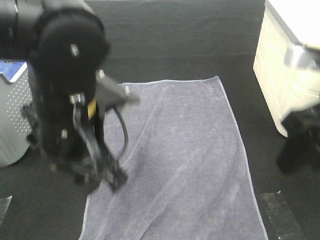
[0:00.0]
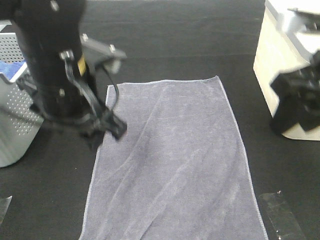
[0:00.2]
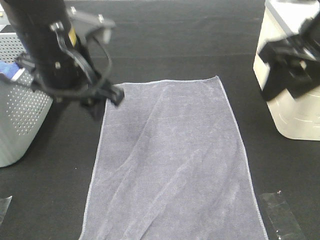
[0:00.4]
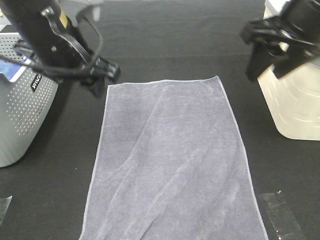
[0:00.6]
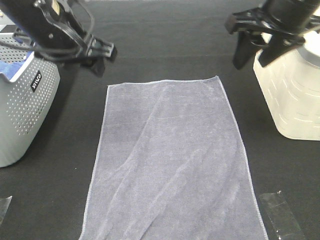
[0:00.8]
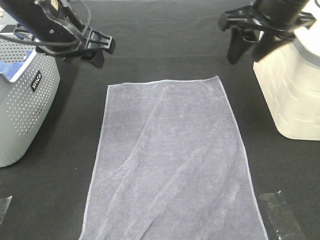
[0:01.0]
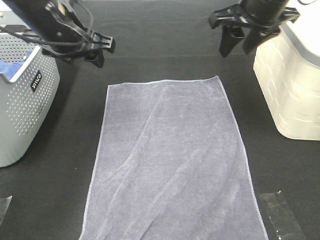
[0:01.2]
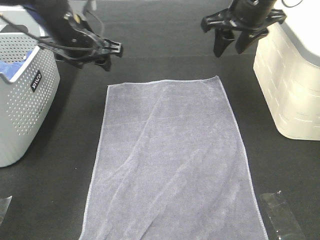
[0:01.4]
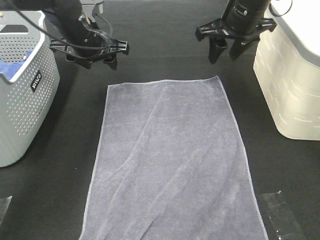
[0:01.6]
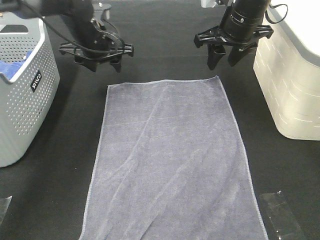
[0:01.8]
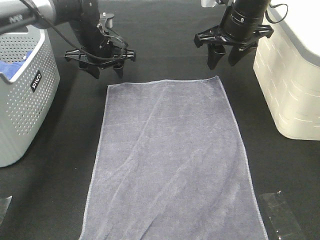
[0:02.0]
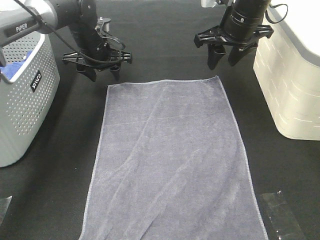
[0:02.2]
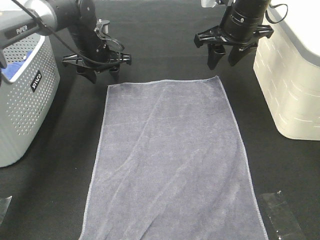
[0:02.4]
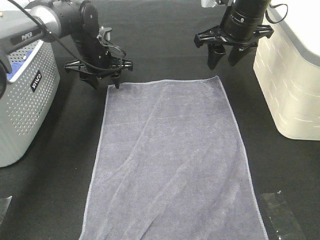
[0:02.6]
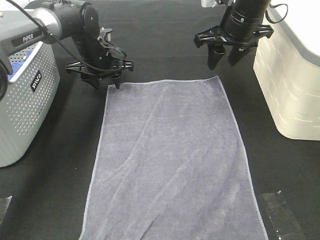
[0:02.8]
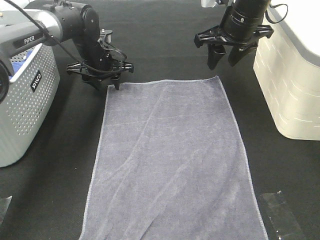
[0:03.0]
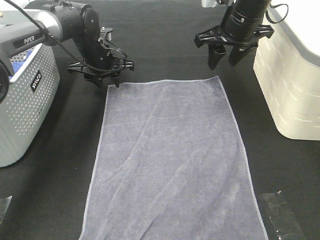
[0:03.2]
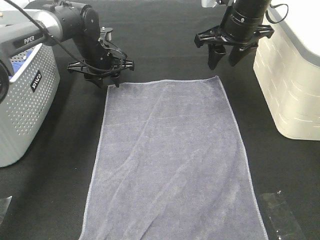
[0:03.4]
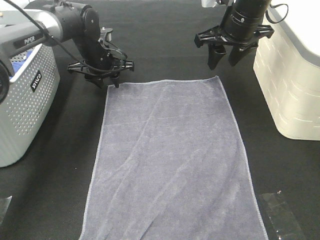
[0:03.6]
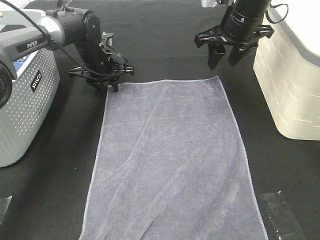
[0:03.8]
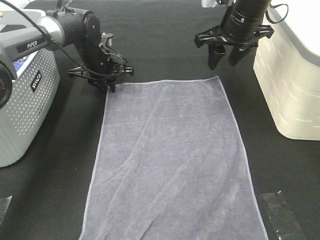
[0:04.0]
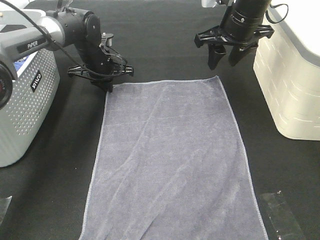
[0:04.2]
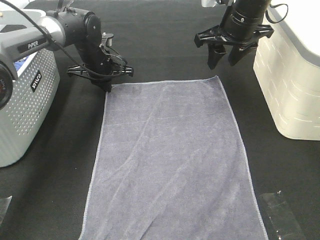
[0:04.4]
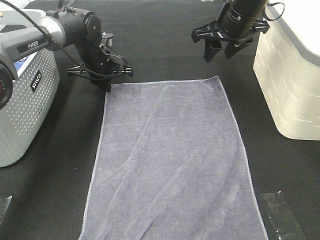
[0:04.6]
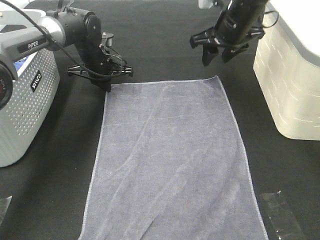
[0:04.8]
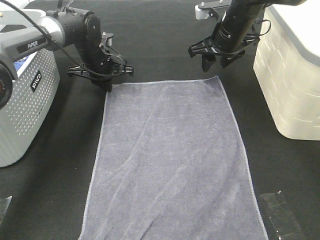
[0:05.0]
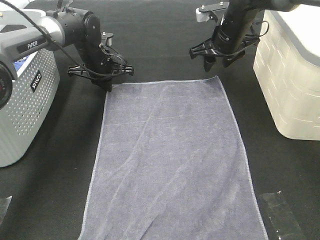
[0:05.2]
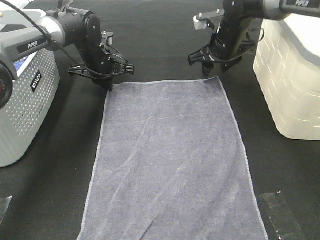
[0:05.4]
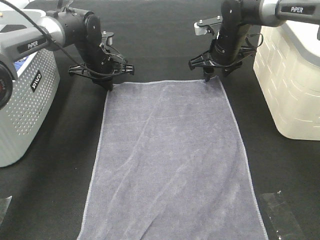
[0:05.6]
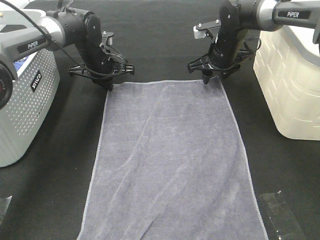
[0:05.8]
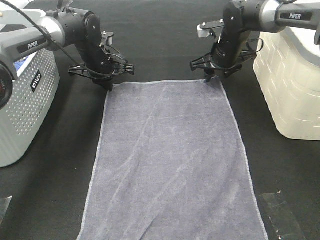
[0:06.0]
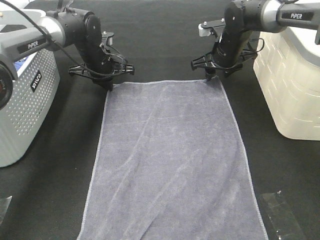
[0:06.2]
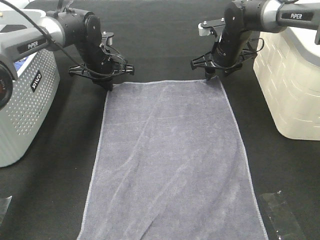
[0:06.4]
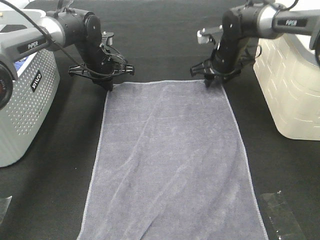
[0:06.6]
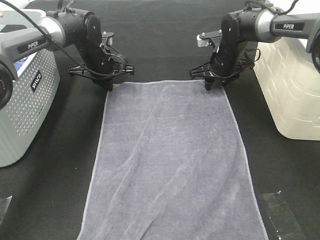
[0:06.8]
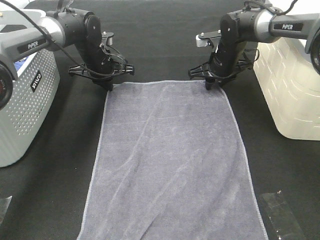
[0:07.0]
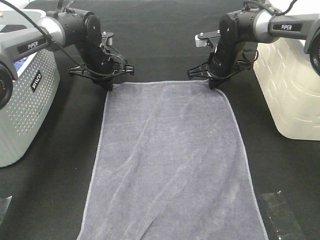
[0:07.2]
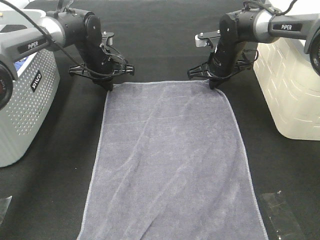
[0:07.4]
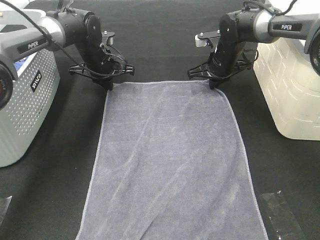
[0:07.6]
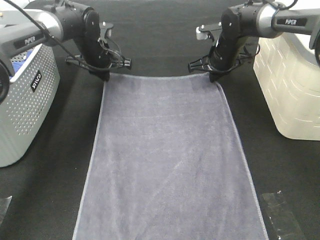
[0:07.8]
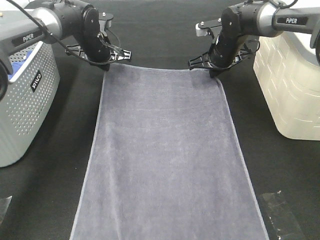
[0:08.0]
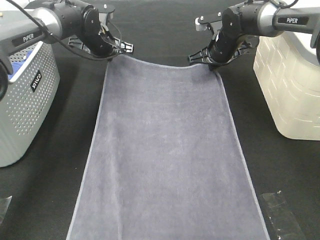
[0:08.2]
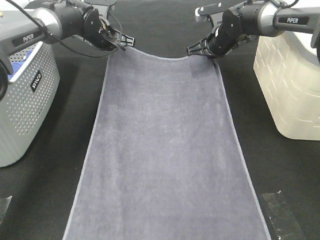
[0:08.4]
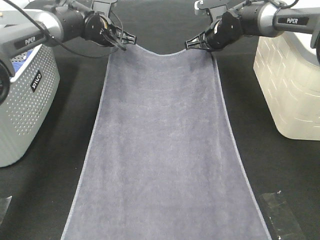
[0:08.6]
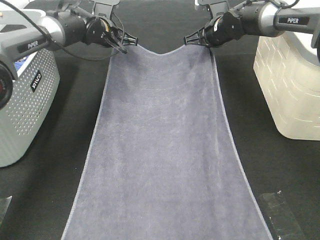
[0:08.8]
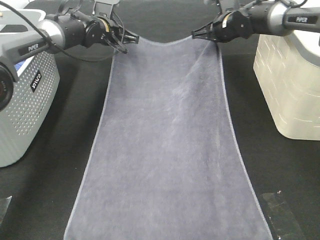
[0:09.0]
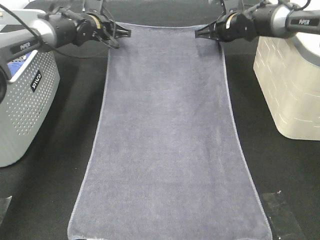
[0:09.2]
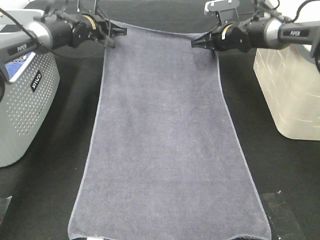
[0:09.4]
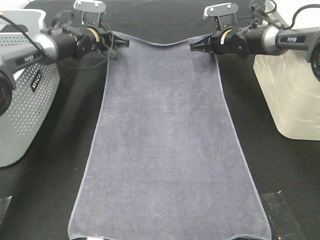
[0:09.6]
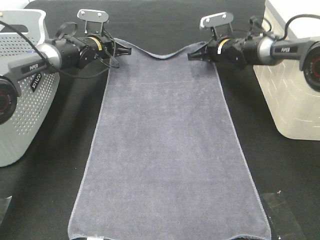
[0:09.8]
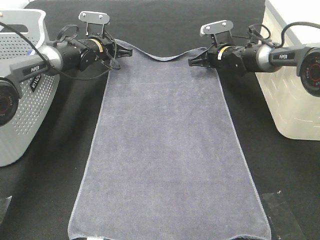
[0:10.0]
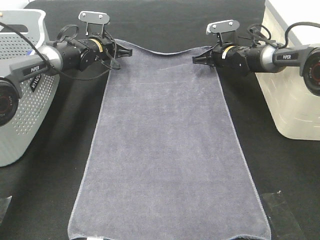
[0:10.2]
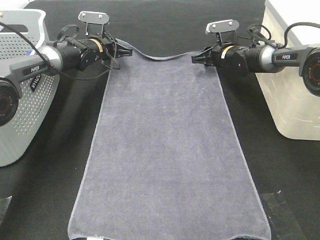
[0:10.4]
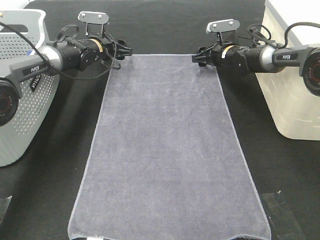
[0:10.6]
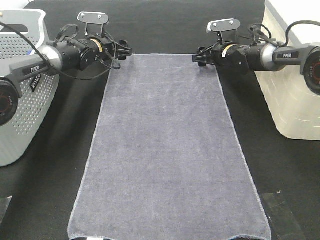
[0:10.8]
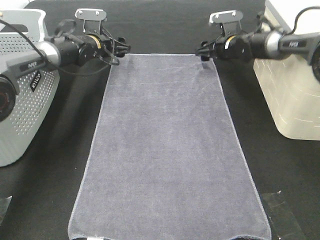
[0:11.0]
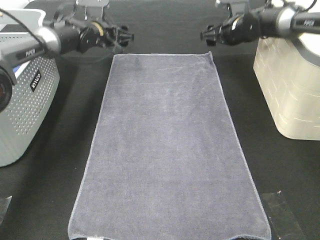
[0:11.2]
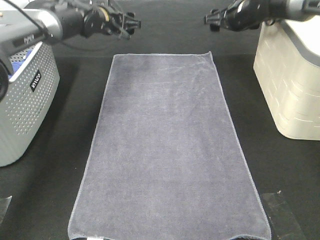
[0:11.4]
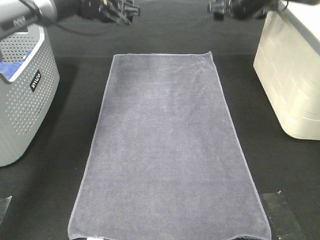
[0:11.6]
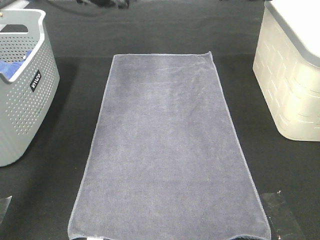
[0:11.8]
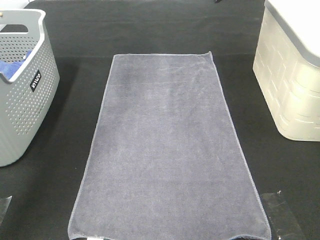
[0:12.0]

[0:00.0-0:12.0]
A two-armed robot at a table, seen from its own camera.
Task of the whole recording: Remove the towel and place it.
Step, 0:00.0 to 0:03.4: Left hand:adjust the gray towel.
Step, 0:00.0 to 0:03.4: Right hand:adjust the gray towel.
0:00.0 to 0:01.6: Both grippers move forward, roughly 25 cm.
0:01.6 to 0:03.0: The left gripper goes approximately 10 cm downward and forward.
0:03.0 to 0:04.4: The left gripper closes.
0:04.4 to 0:06.0: The right gripper goes some 10 cm downward and forward.
0:06.0 to 0:07.6: The right gripper closes its fingers.
0:07.6 to 0:09.0: The right gripper moves upward, roughly 5 cm. Meanwhile the left gripper moves roughly 5 cm.
0:09.0 to 0:10.4: Both grippers move downward, about 10 cm. The right gripper opens up. Meanwhile the left gripper opens.
0:10.4 to 0:12.0: Both grippers move upward, roughly 25 cm. The right gripper opens up. Meanwhile the left gripper opens its fingers.

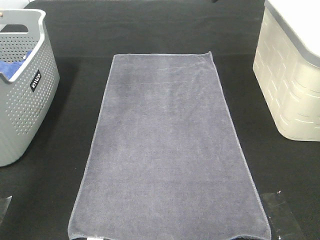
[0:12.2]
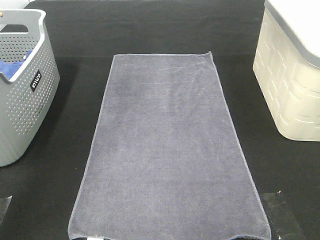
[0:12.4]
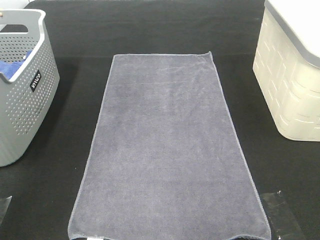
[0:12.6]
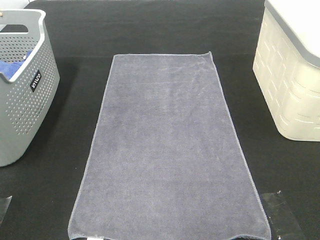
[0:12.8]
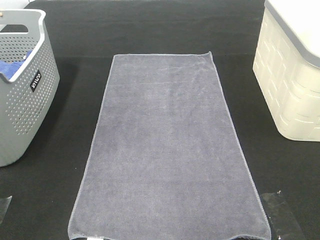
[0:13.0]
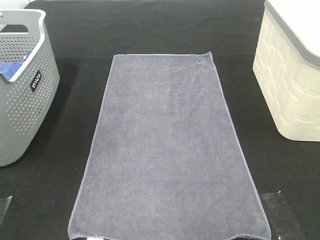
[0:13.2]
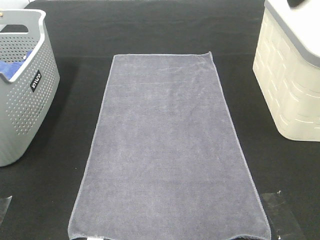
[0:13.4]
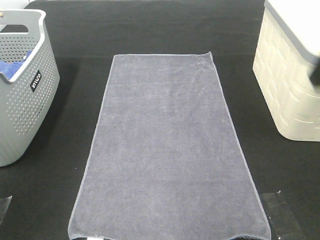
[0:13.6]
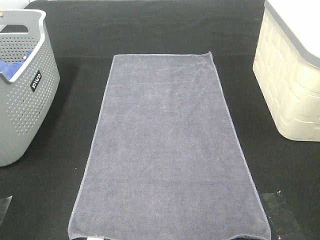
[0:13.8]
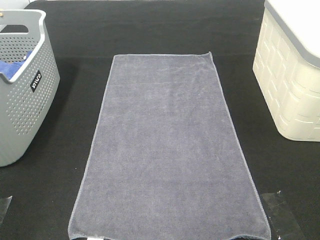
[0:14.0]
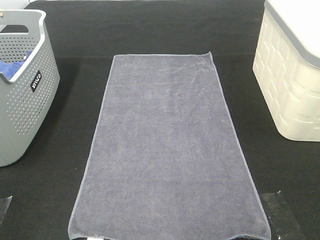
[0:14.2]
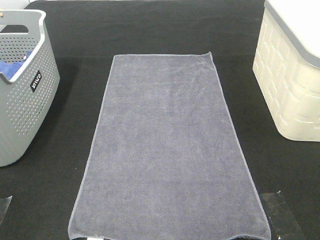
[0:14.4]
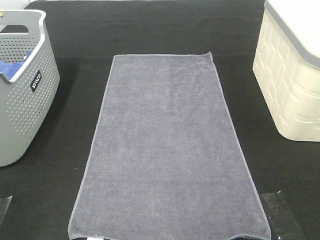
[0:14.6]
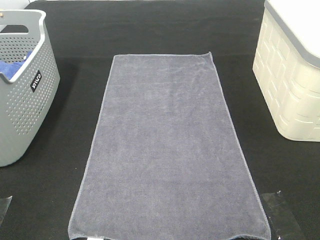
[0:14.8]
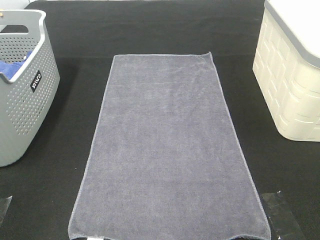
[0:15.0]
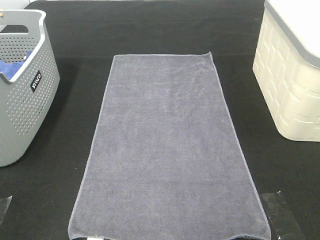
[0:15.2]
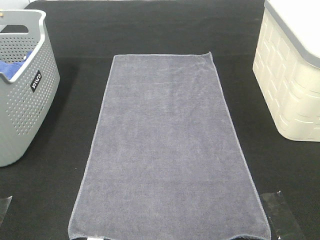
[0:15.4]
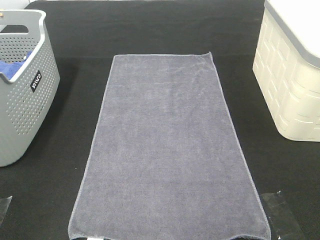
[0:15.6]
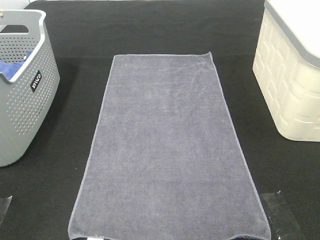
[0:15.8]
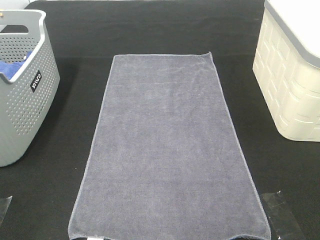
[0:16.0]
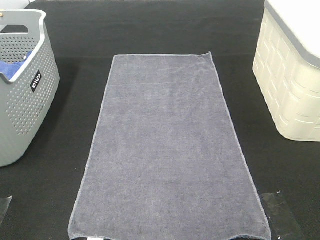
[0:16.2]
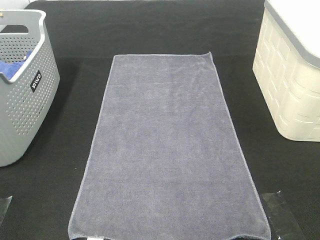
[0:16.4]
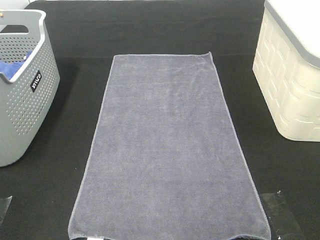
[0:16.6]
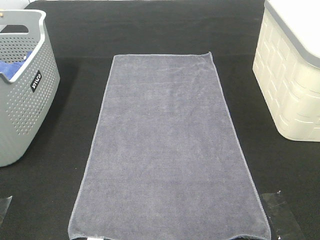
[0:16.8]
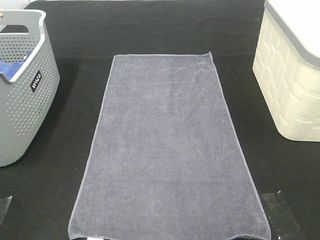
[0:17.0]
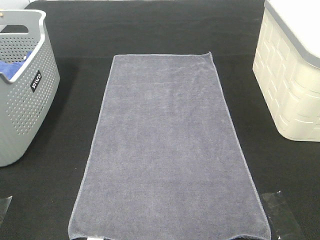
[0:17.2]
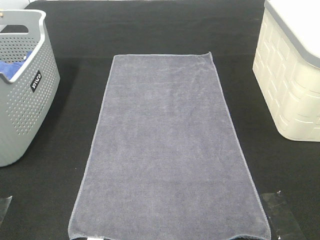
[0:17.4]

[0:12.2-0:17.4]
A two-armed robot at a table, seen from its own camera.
Task of the whole recording: Remove the towel and place it.
0:12.2 to 0:14.0: The grippers both shift backward by roughly 40 cm.

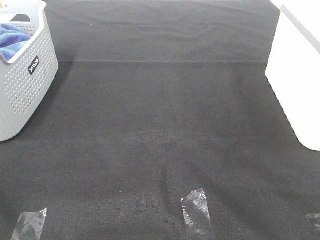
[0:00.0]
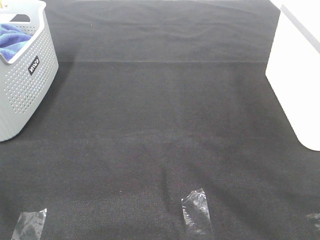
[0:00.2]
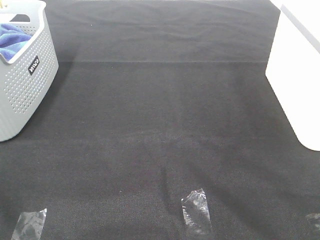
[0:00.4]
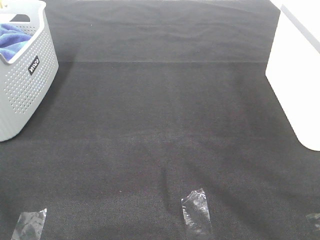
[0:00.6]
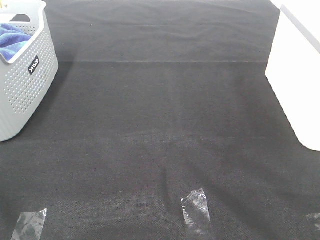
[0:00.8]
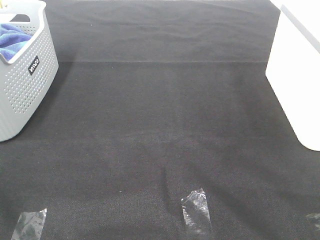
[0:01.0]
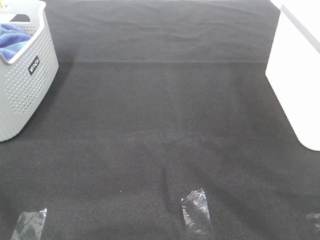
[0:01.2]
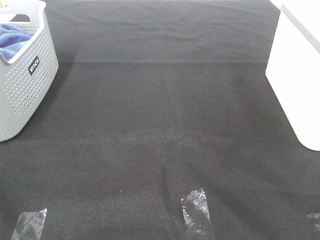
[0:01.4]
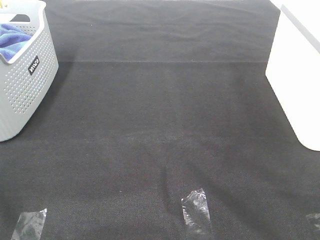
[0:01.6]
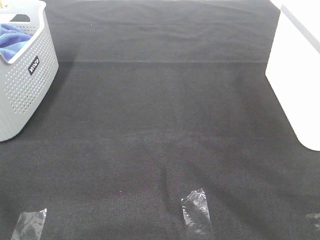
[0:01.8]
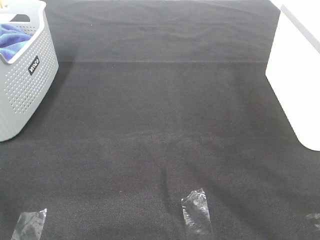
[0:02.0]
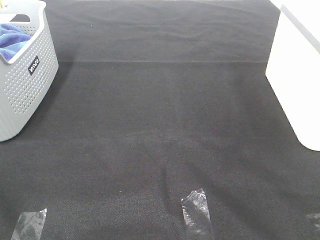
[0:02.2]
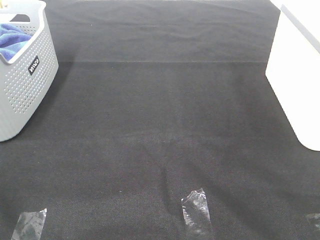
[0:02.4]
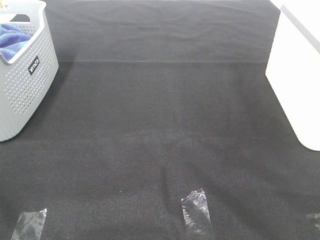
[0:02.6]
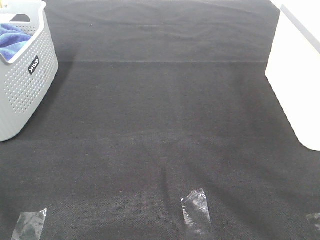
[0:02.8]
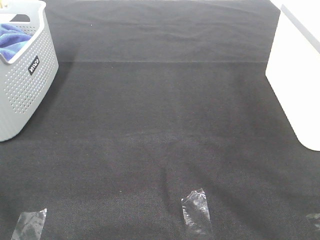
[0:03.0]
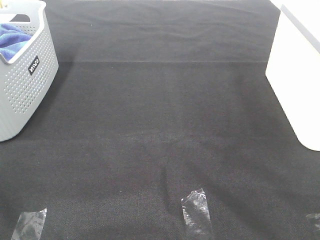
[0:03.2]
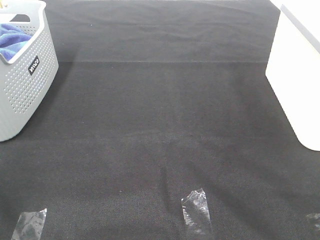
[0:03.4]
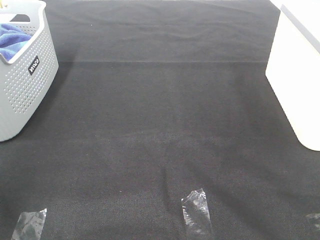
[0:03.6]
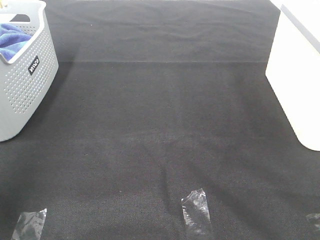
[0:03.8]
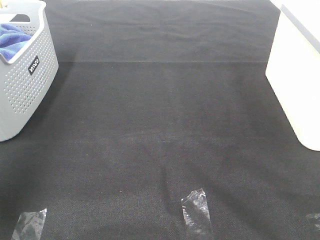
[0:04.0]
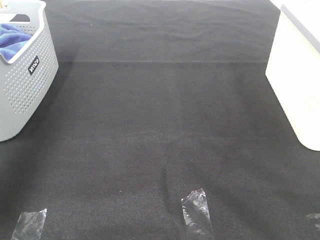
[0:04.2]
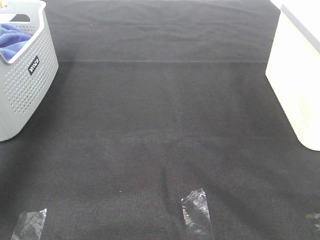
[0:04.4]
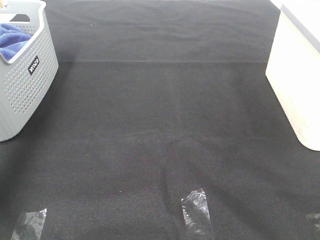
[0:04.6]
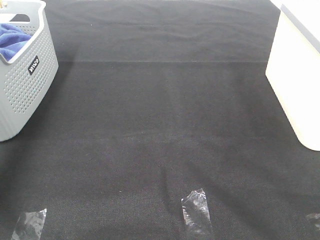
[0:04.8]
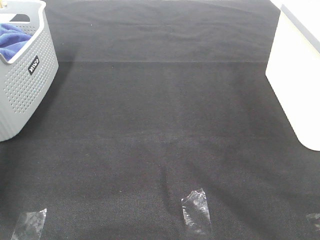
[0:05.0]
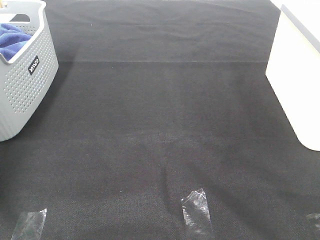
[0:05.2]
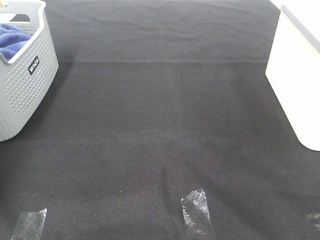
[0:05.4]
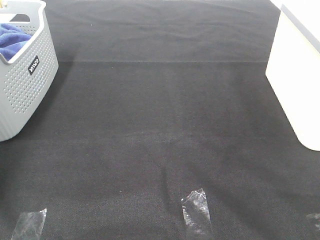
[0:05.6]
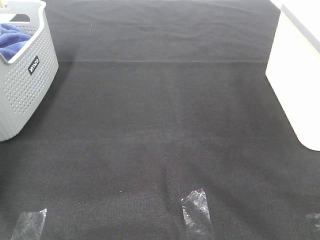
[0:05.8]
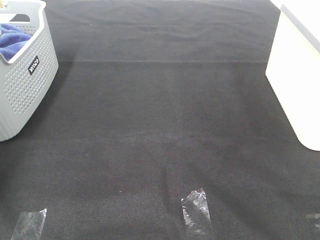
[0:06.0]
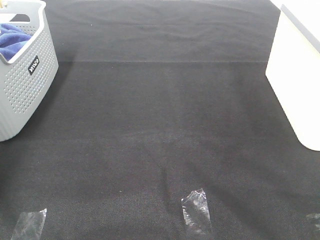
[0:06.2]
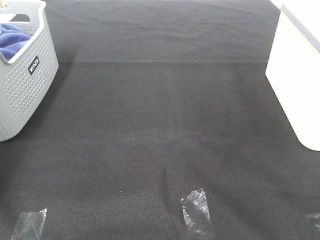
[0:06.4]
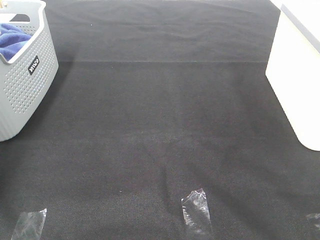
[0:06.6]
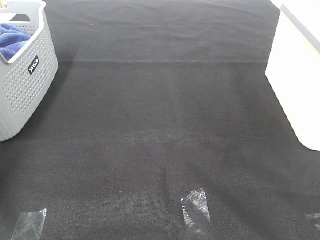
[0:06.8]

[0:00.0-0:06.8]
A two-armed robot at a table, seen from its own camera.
Task of the whole recording: Remove the towel and place it.
0:00.0 to 0:02.8: Neither gripper changes place.
0:02.8 to 0:04.0: The left gripper moves forward and upward, roughly 30 cm.
0:04.0 to 0:05.4: The left gripper travels forward and downward by some 35 cm.
